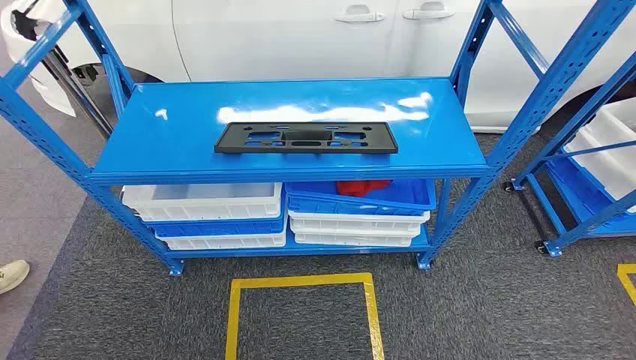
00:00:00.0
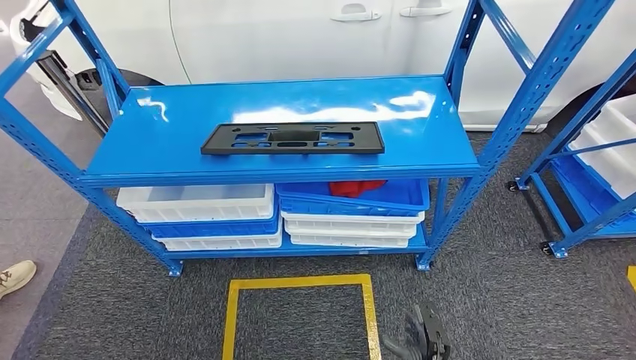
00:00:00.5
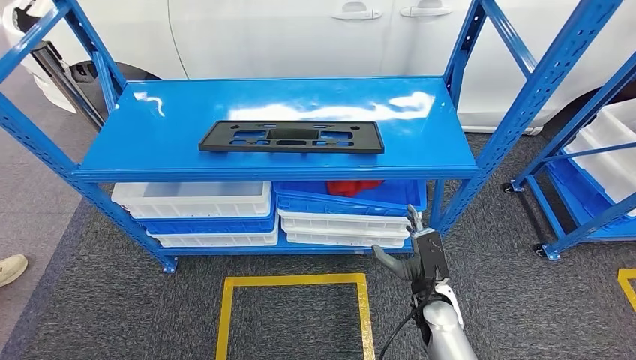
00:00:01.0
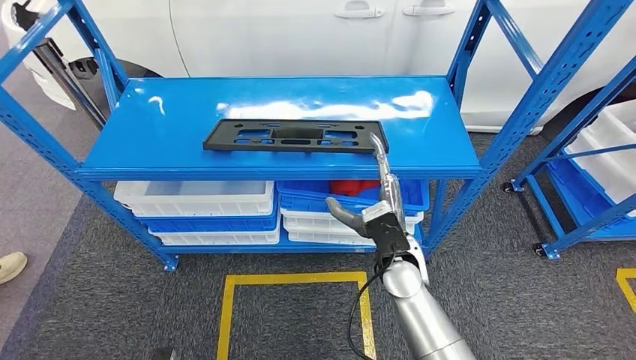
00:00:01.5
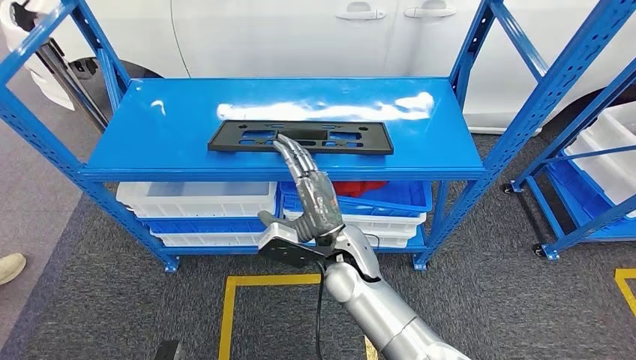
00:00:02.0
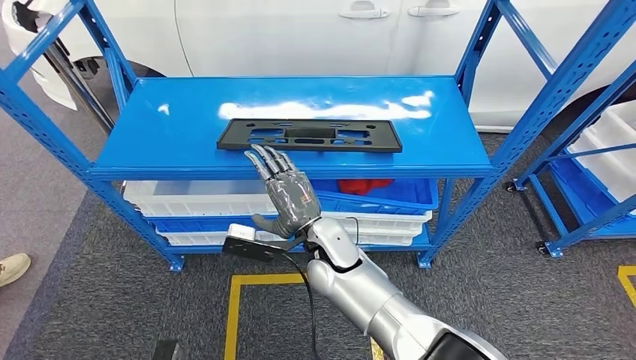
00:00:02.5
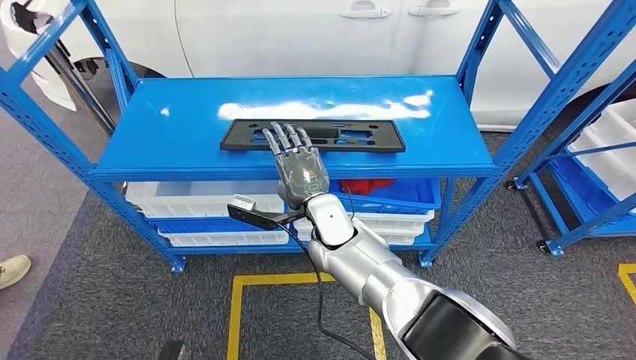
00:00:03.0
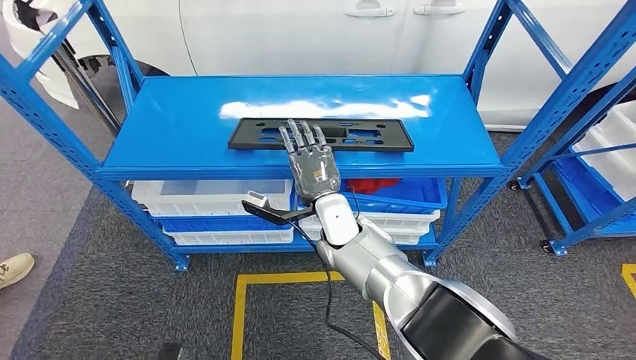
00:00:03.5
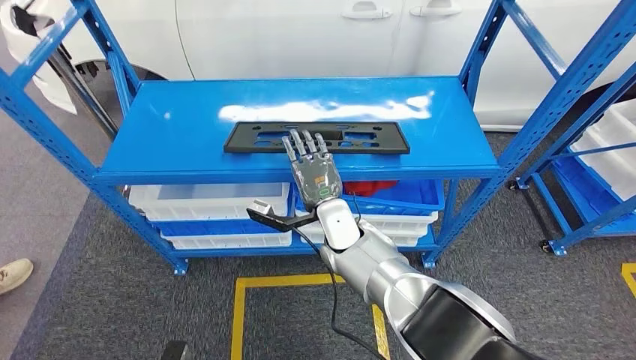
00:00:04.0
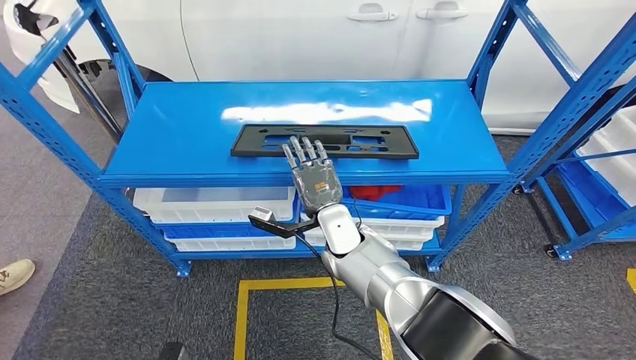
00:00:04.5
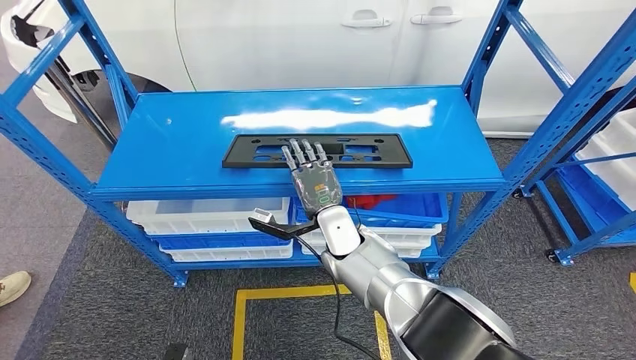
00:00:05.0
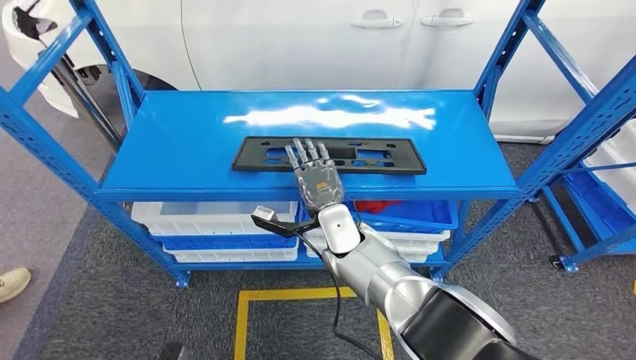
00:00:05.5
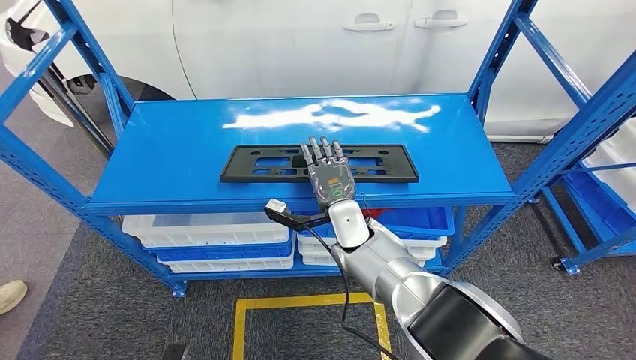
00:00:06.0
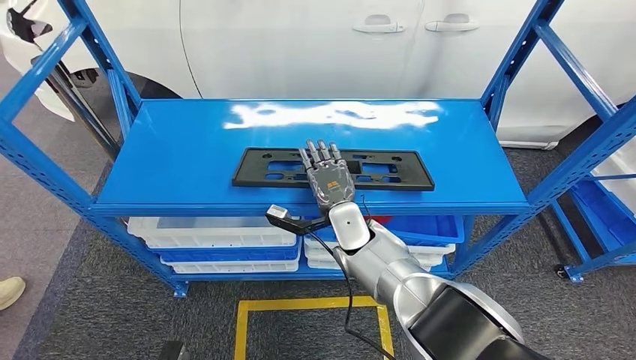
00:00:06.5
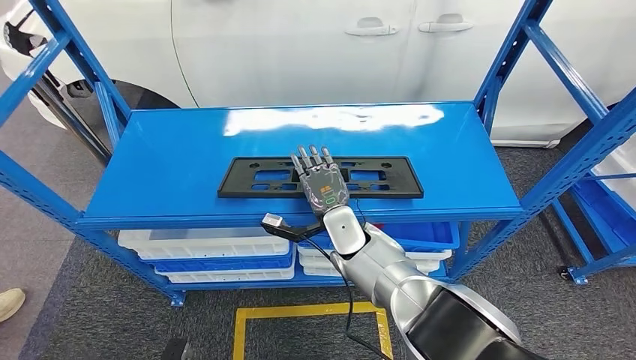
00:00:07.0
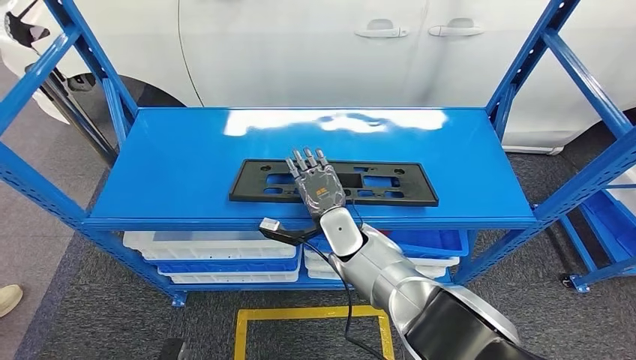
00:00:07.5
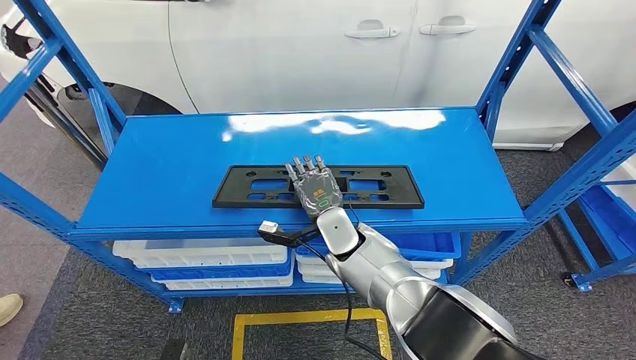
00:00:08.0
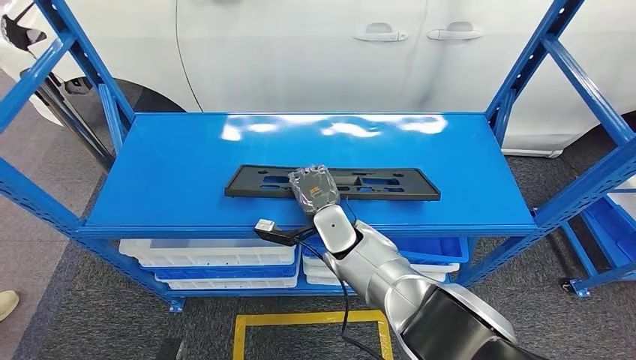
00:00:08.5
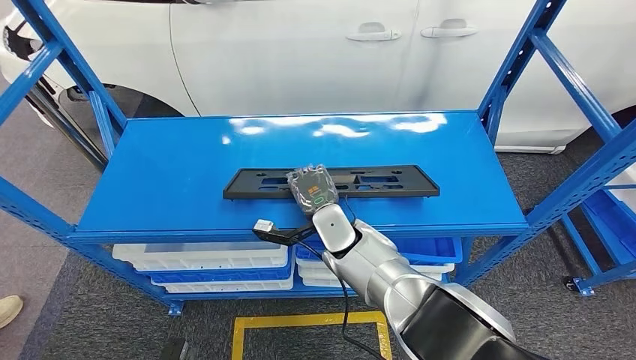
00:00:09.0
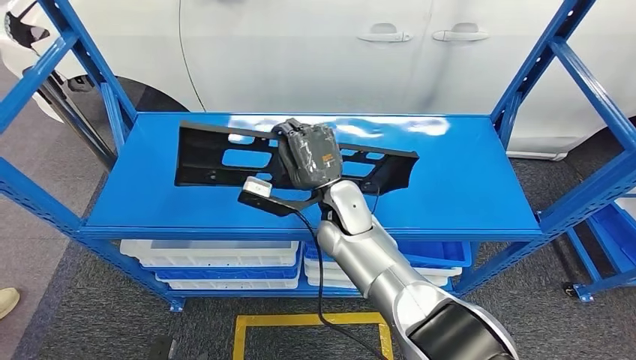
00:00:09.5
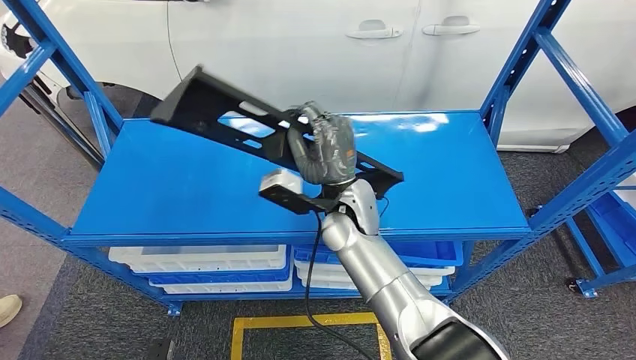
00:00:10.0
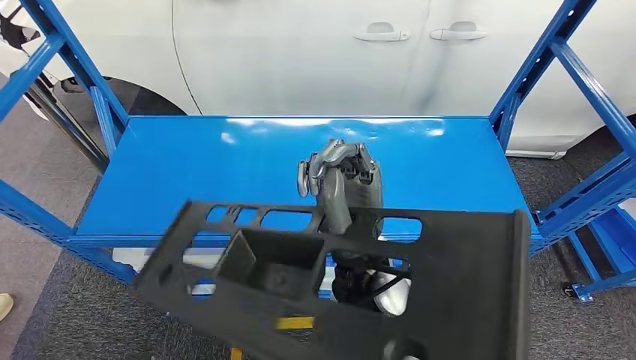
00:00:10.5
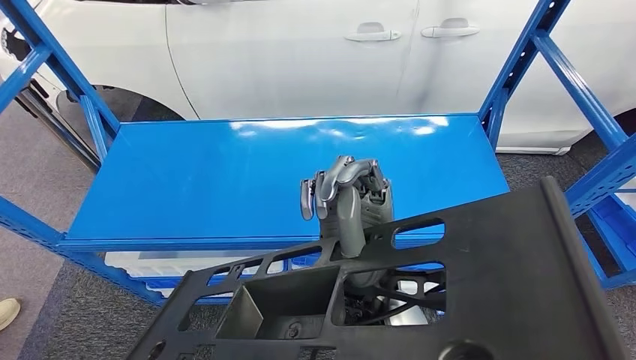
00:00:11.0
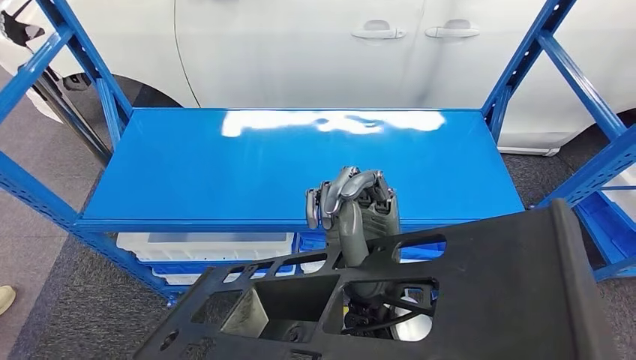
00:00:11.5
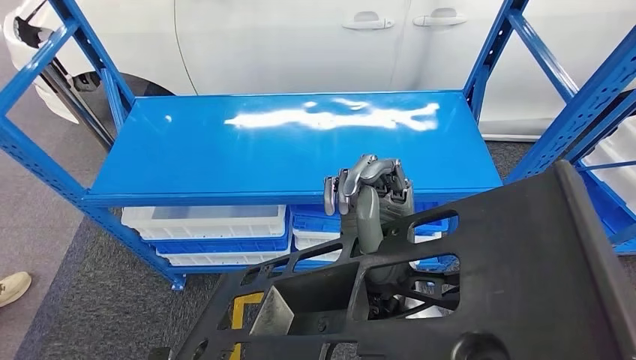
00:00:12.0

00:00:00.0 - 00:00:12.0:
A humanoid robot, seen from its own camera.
Step, 00:00:00.0 - 00:00:11.0: Pick up the large material from the shelf.

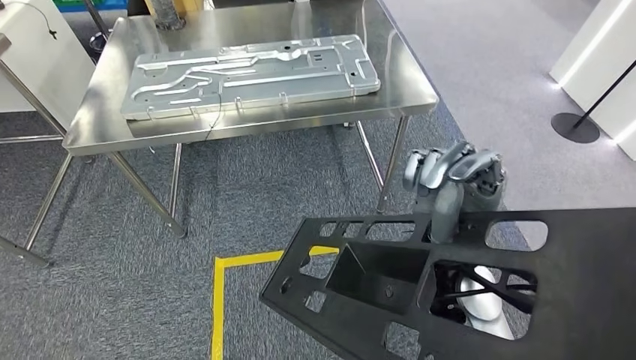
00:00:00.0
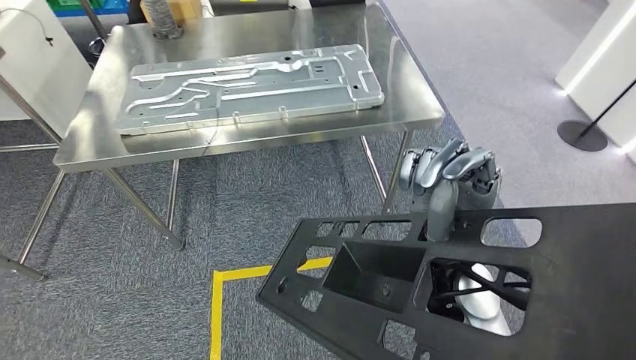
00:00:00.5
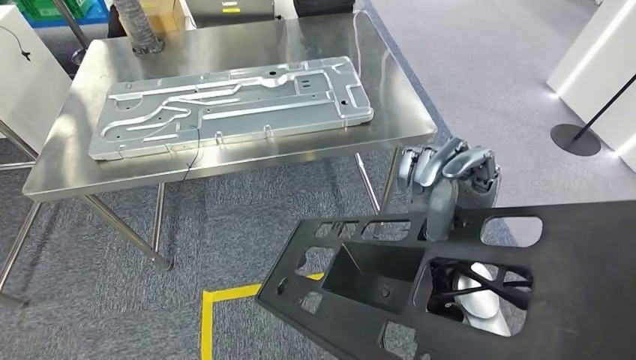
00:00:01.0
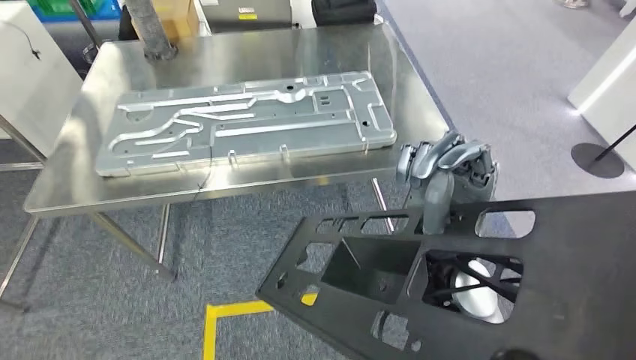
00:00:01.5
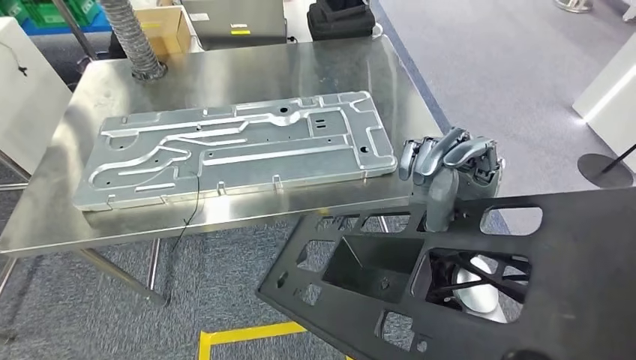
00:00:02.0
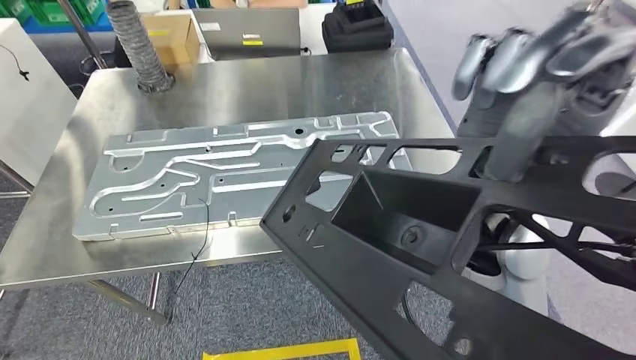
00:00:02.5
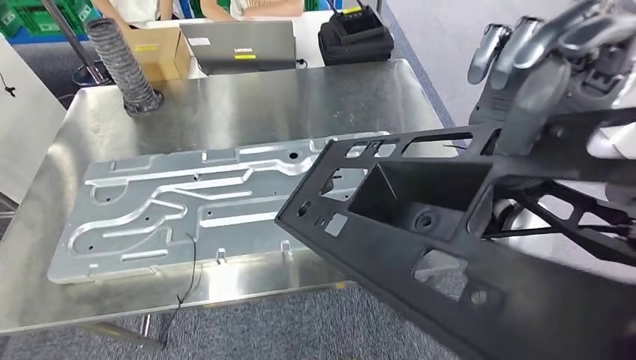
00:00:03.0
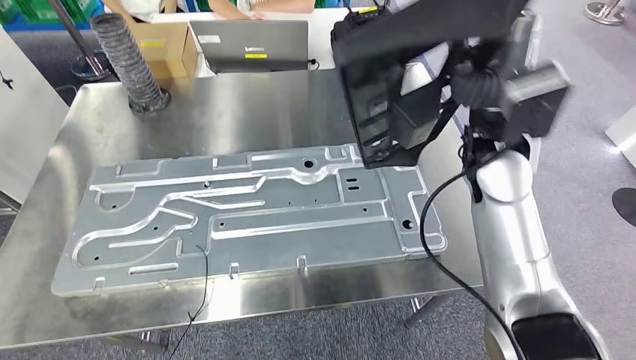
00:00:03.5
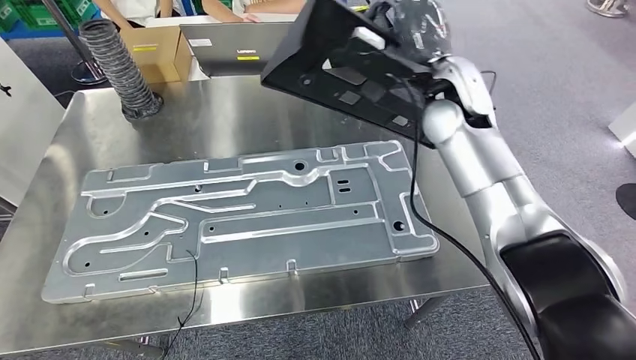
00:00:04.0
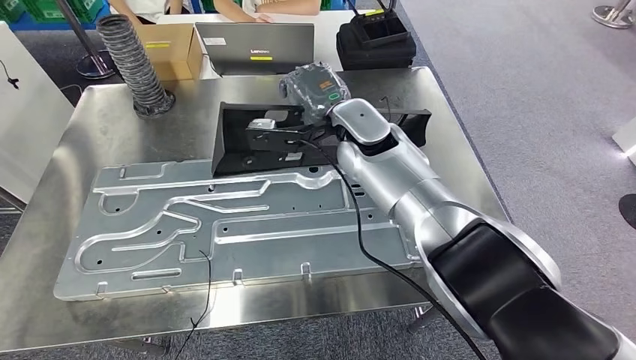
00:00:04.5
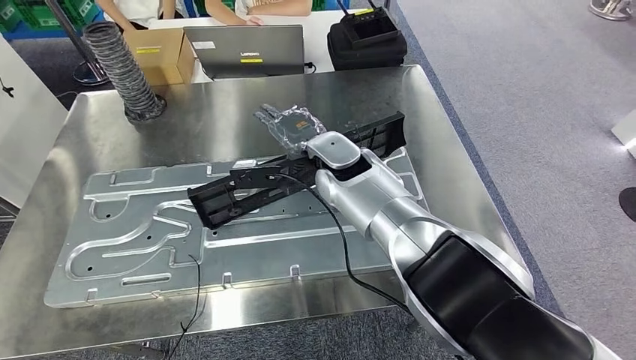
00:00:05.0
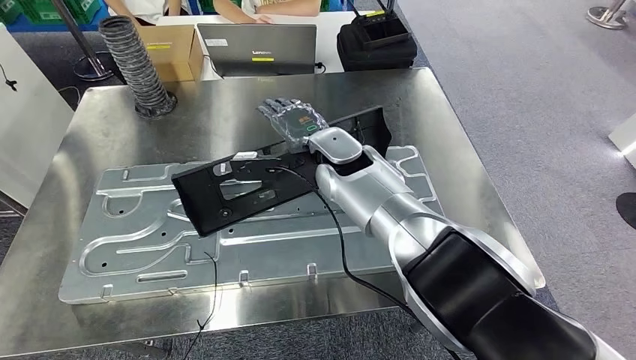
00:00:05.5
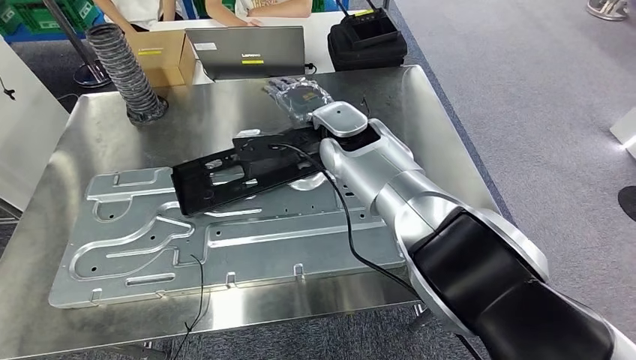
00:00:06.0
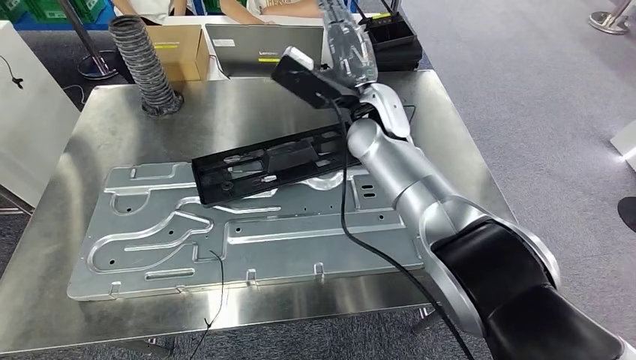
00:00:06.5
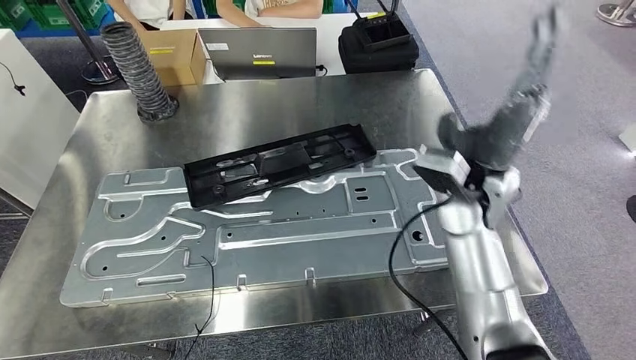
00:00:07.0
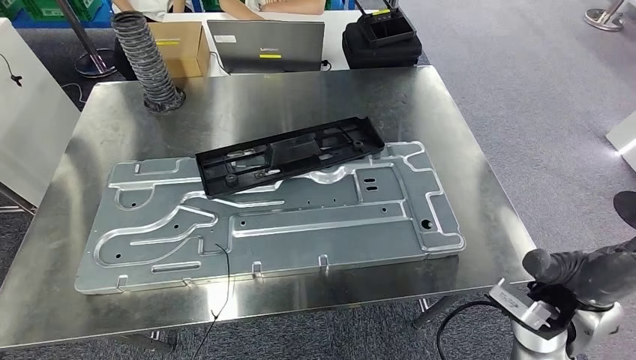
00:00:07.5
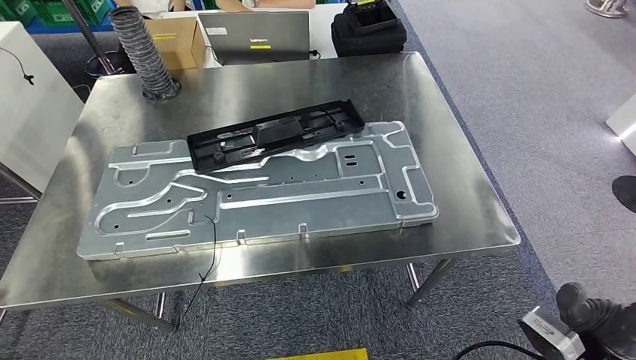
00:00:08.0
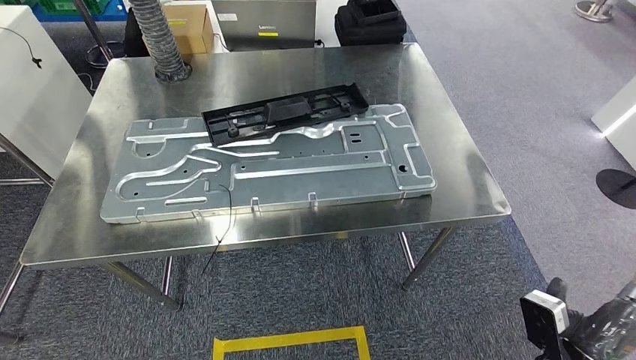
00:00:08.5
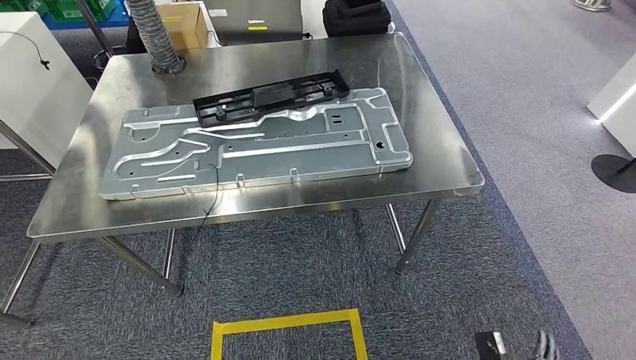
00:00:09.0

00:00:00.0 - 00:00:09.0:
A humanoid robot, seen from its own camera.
Step, 00:00:00.0 - 00:00:03.0: Move the large material to the workbench.
Step, 00:00:03.5 - 00:00:08.0: Insert the large material into the corresponding slot on the workbench.
